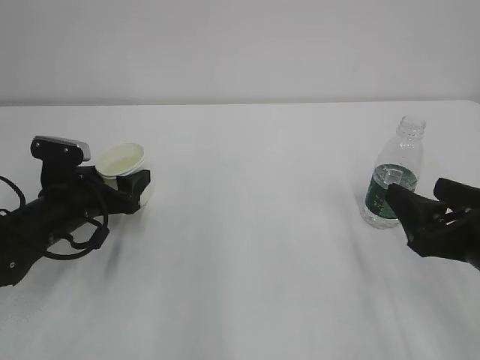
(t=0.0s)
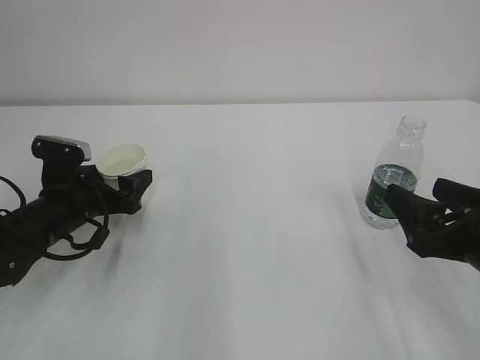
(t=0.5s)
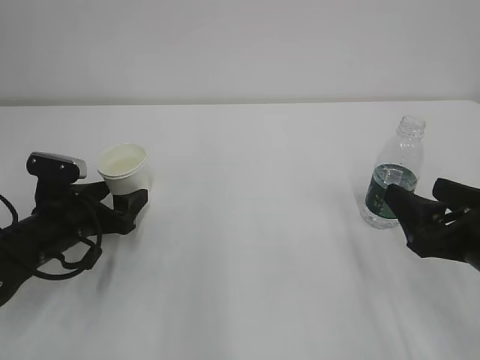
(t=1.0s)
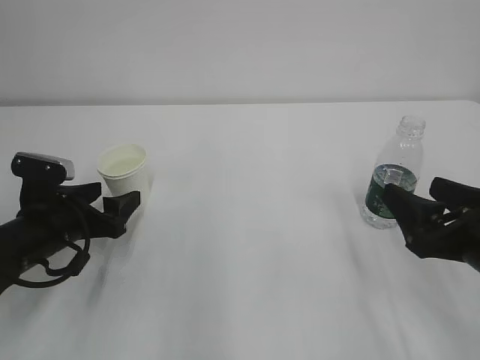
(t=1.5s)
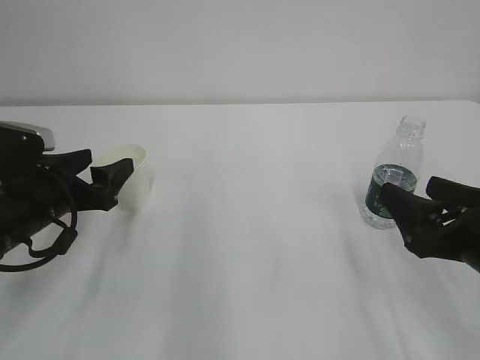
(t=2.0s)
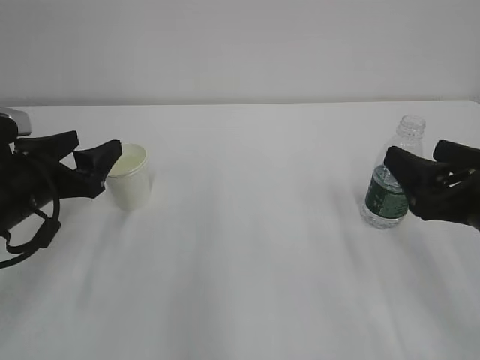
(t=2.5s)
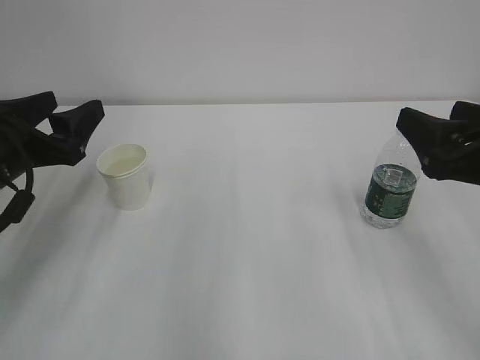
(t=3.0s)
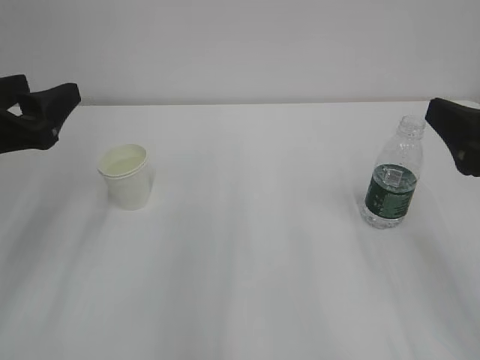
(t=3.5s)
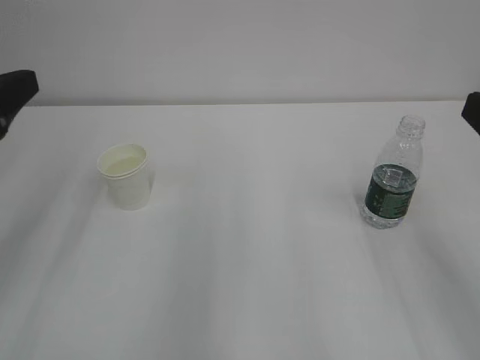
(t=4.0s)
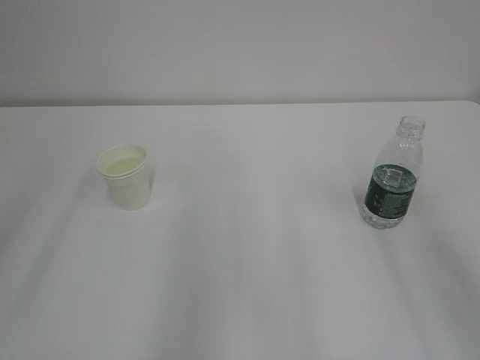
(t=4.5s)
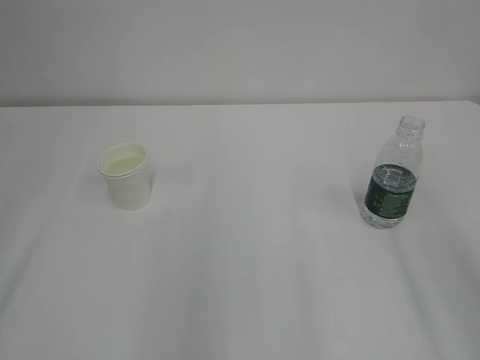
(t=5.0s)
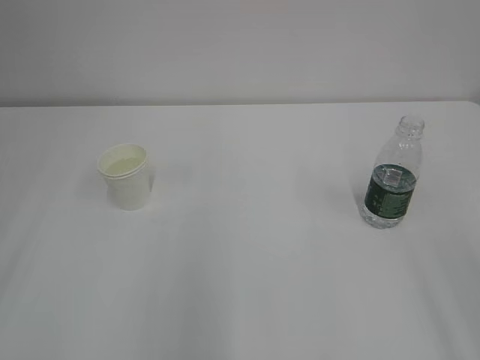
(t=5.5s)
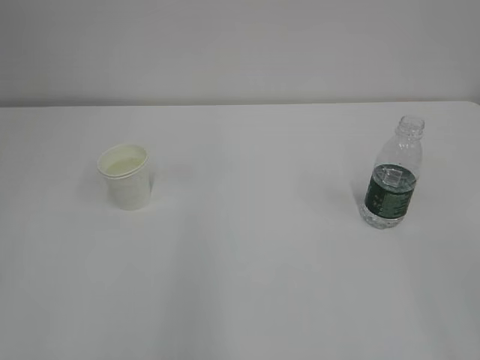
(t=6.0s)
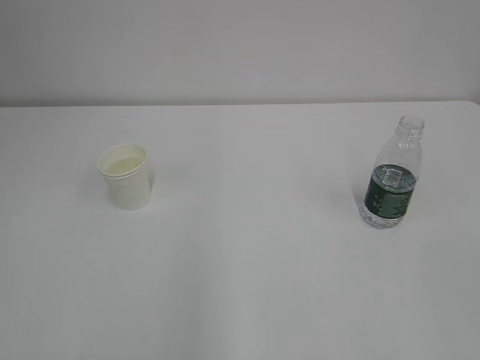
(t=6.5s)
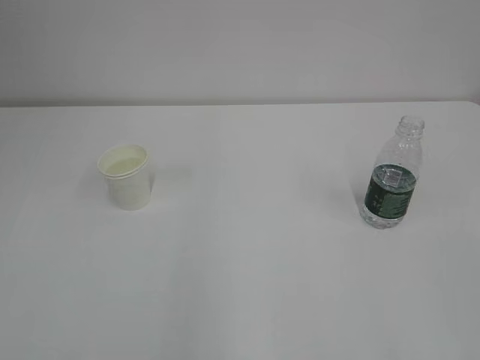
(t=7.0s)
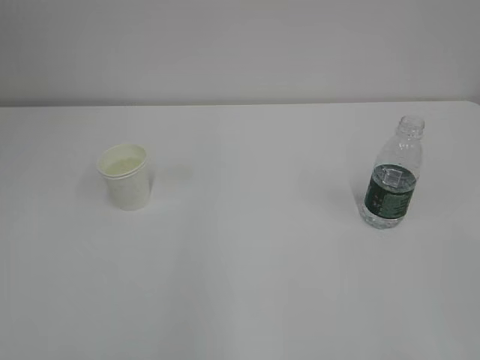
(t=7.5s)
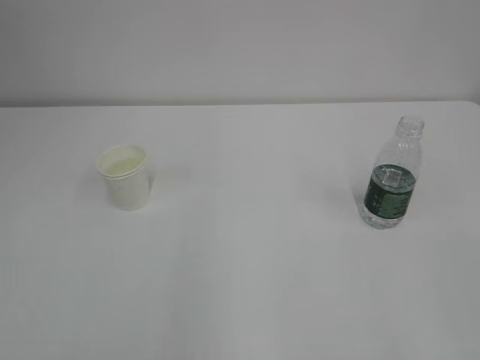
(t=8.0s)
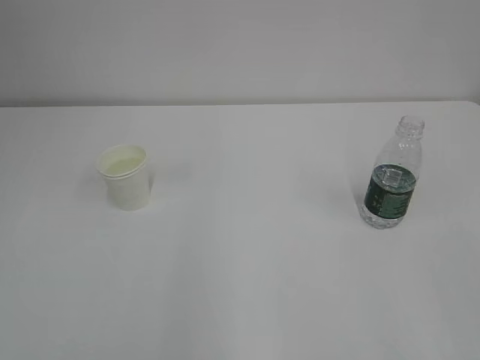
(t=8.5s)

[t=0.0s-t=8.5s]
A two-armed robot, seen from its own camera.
t=0.0s to t=2.0s: The left gripper moves about 5 cm.
t=2.0s to t=4.0s: The left gripper heads upward and backward, covering some 20 cm. Meanwhile the right gripper moves upward, approximately 10 cm.
t=4.0s to t=6.5s: The left gripper goes approximately 20 cm backward.
